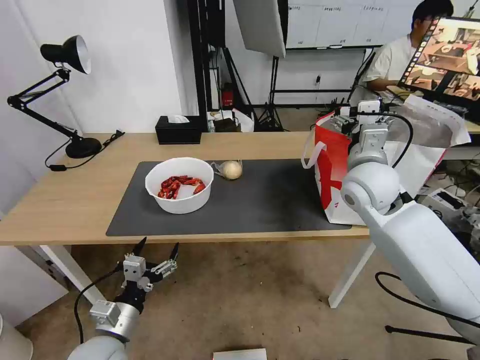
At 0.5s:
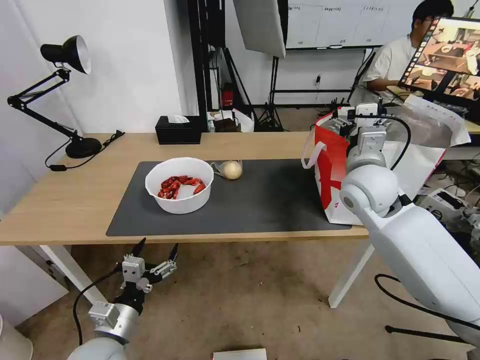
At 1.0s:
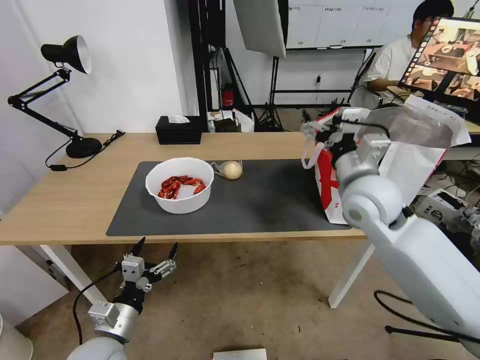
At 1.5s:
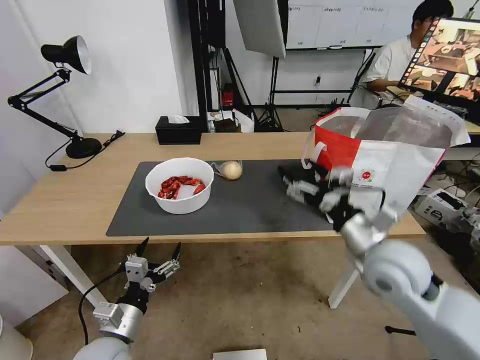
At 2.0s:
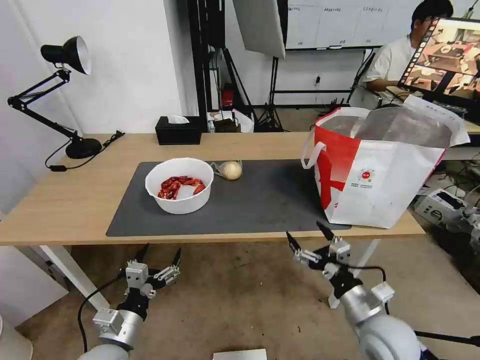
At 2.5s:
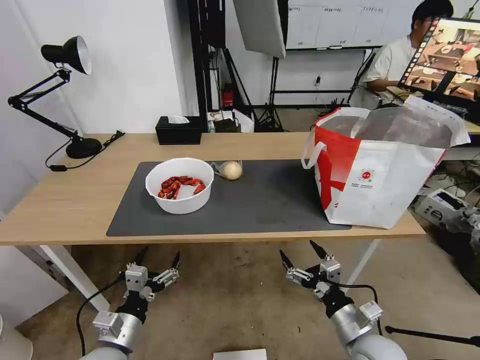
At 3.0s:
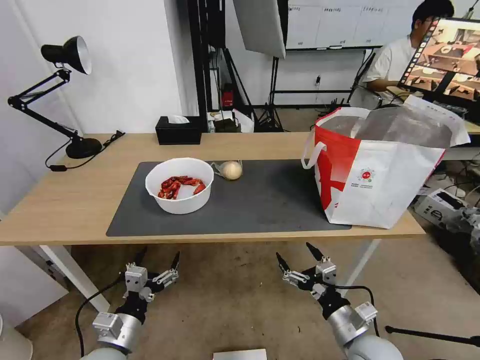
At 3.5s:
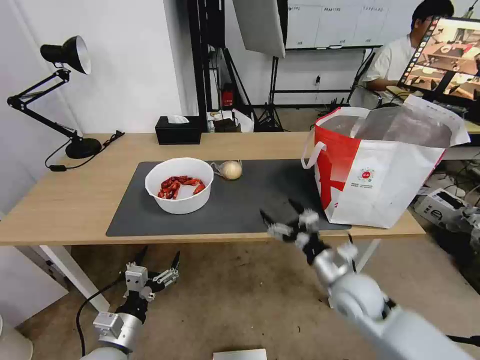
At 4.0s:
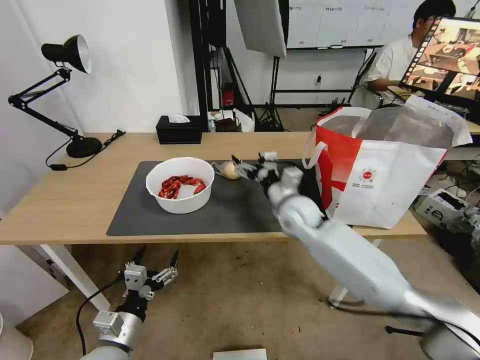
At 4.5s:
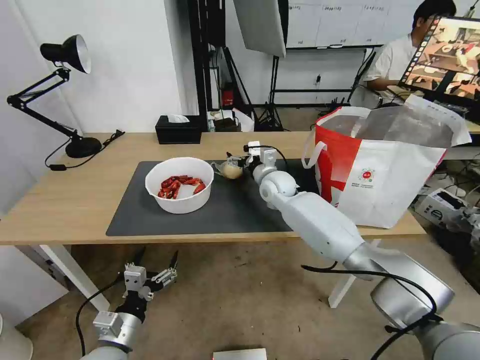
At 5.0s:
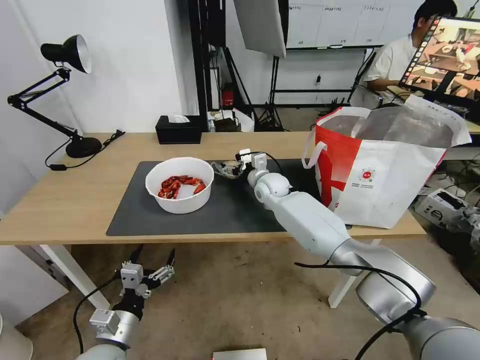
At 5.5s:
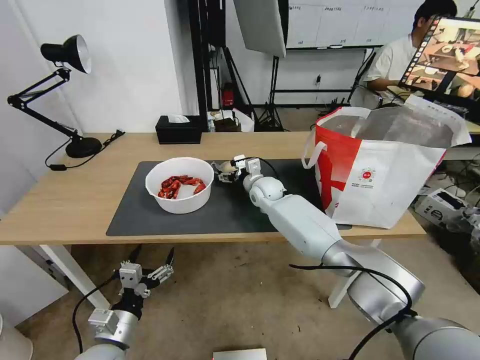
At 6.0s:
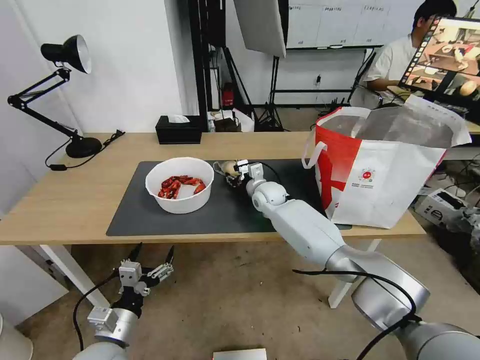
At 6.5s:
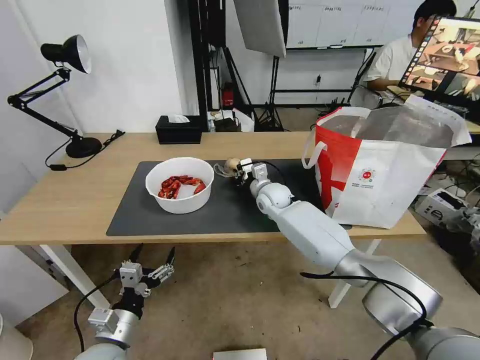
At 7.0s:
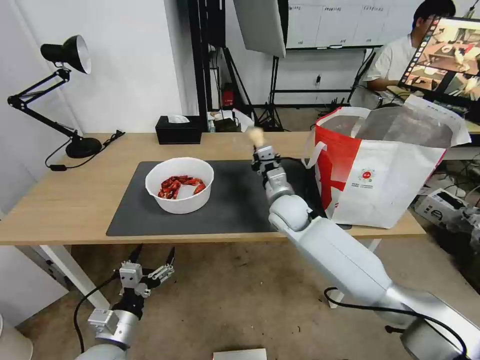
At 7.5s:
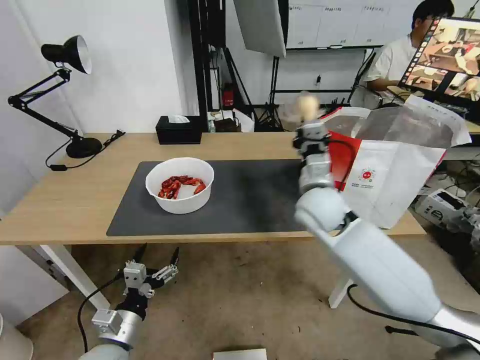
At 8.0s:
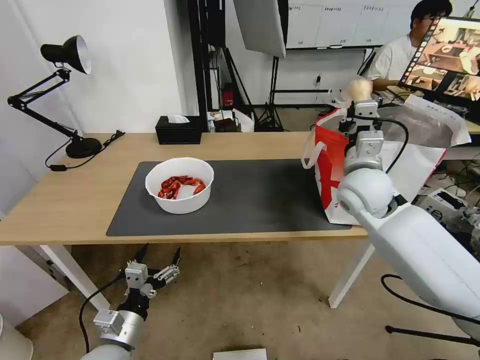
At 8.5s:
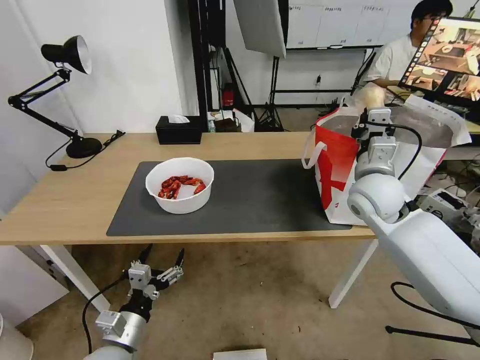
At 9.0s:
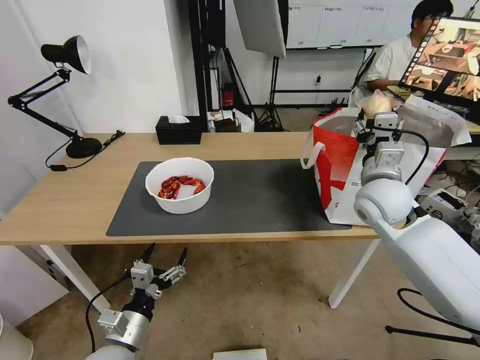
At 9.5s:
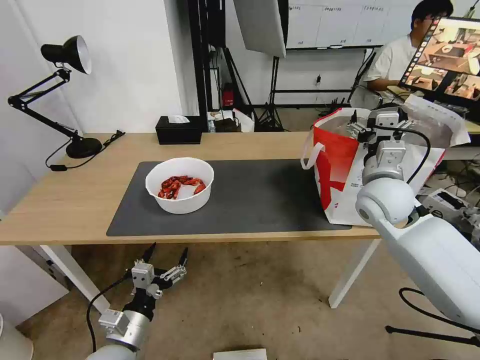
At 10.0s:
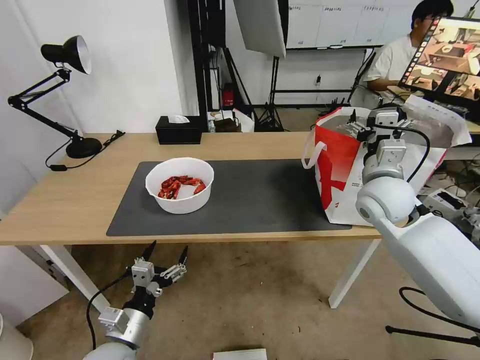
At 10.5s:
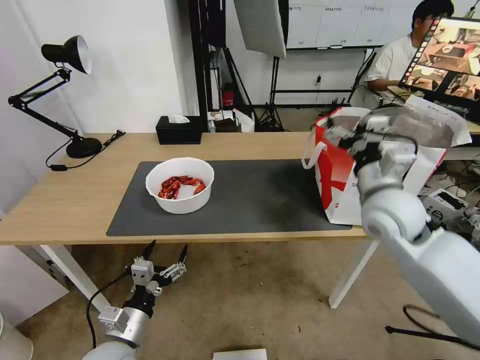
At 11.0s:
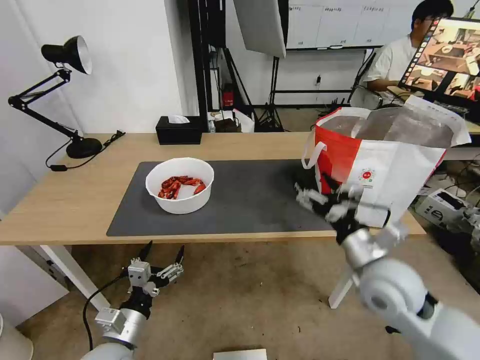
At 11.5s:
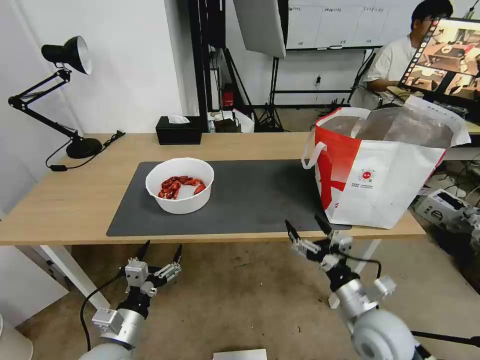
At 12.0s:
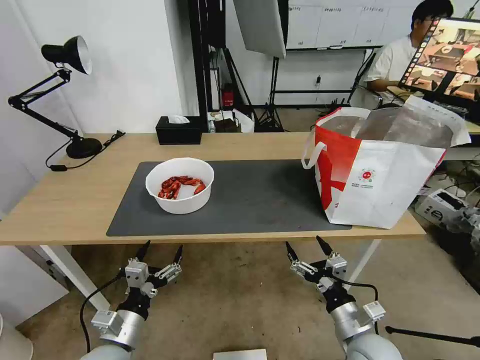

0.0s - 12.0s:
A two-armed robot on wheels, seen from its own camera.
Task of the whole recording: Pick up the trash from the table and place it into the takeout bag.
0.0s - 2.0s: The right gripper goes approximately 30 cm backward and downward.
2.0s - 4.0s: The right gripper shifts some 30 cm forward and to the left.
4.0s - 6.0s: The right gripper travels forward, downward and to the left by roughly 15 cm, and closes.
6.0s - 8.0s: The right gripper travels upward, to the right and backward by about 25 cm, and closes up.
8.0s - 10.0s: The right gripper opens its fingers.
10.0s - 12.0s: The right gripper moves backward and downward, about 30 cm.

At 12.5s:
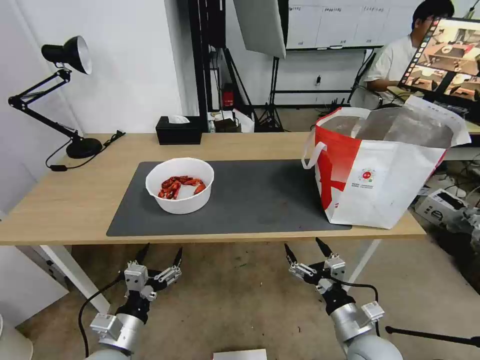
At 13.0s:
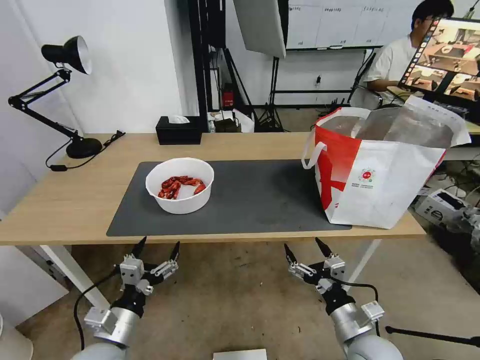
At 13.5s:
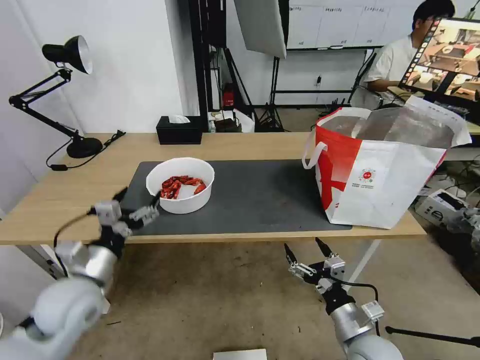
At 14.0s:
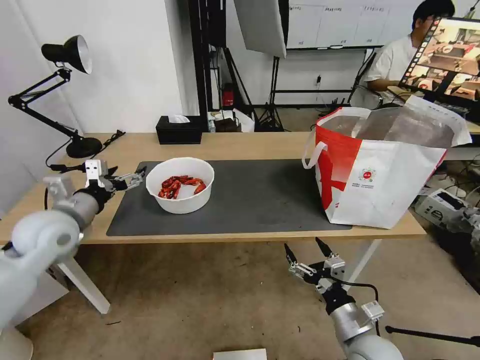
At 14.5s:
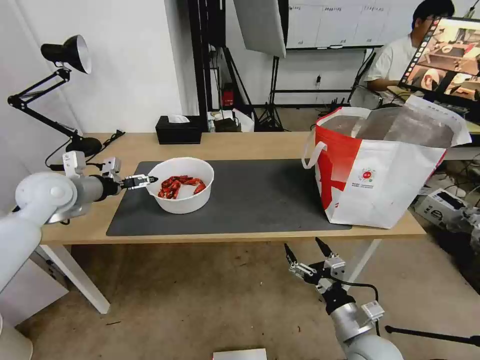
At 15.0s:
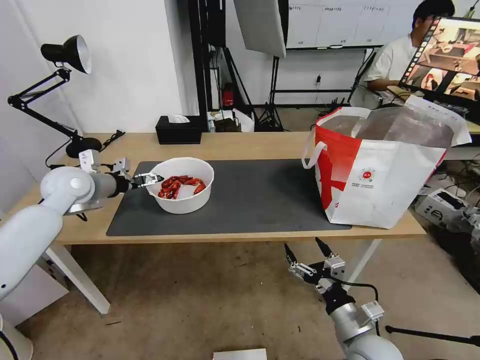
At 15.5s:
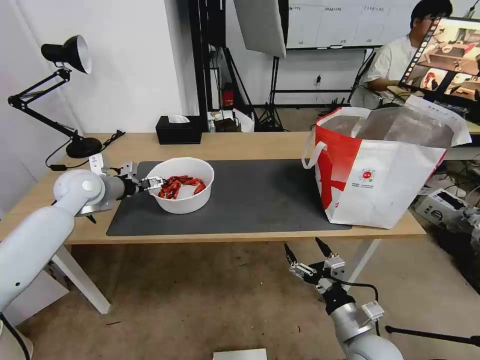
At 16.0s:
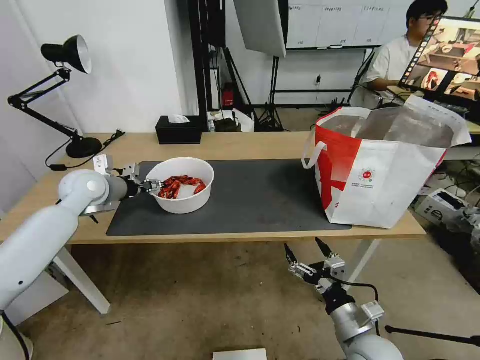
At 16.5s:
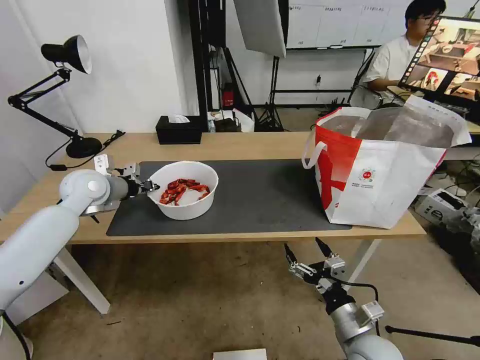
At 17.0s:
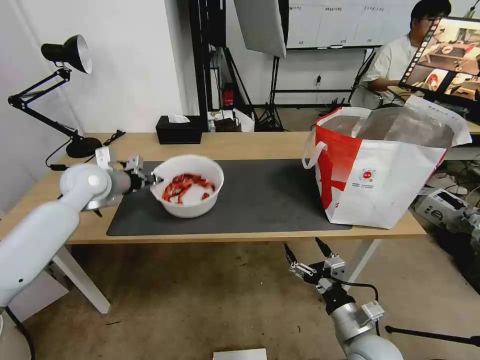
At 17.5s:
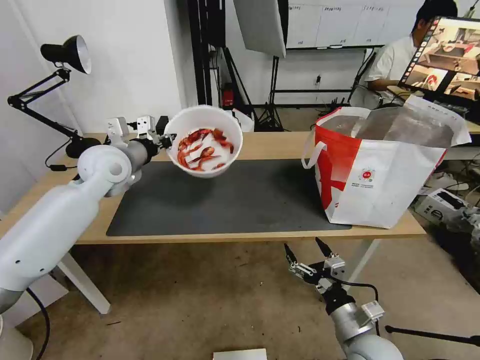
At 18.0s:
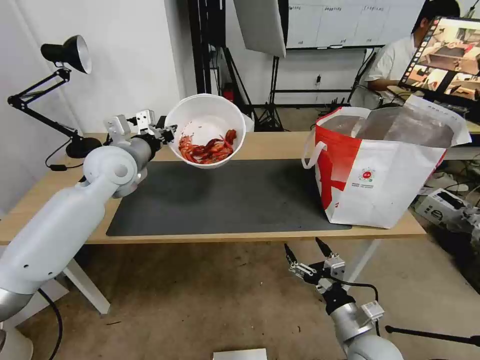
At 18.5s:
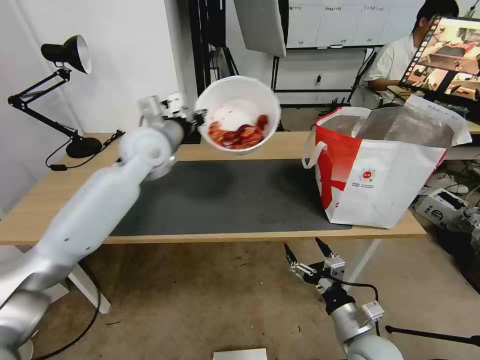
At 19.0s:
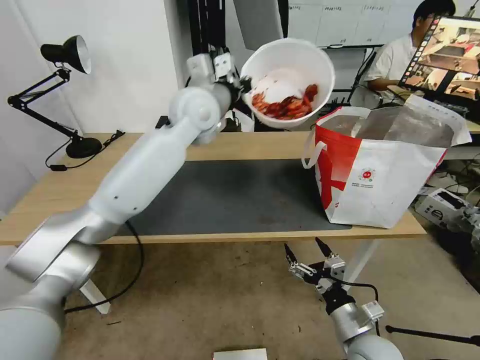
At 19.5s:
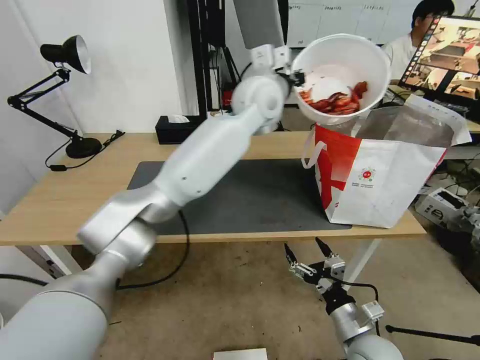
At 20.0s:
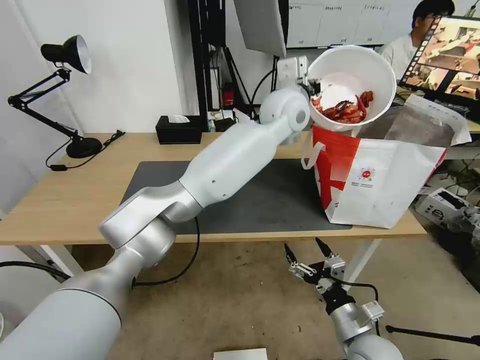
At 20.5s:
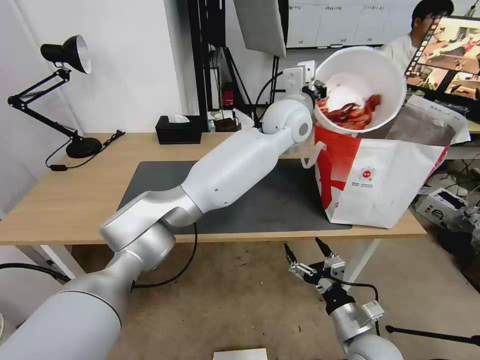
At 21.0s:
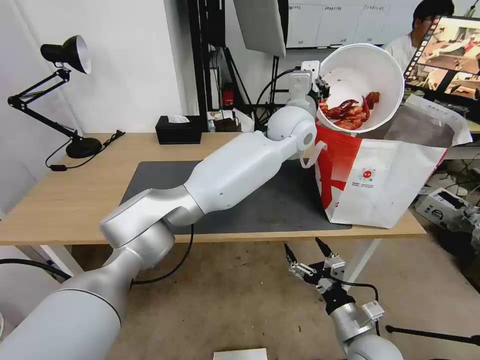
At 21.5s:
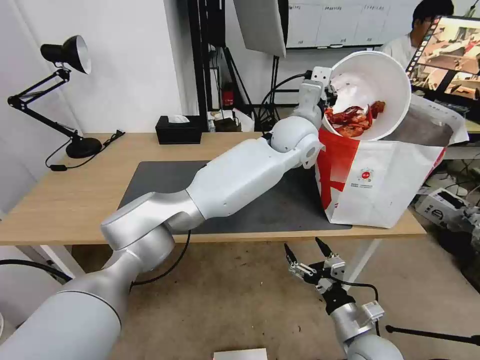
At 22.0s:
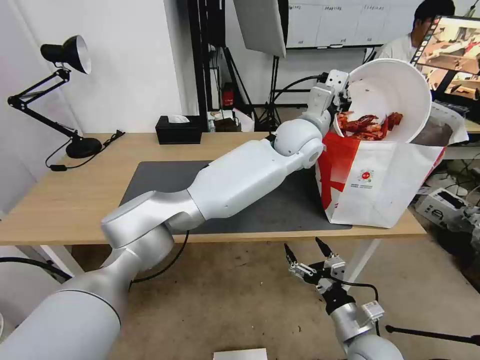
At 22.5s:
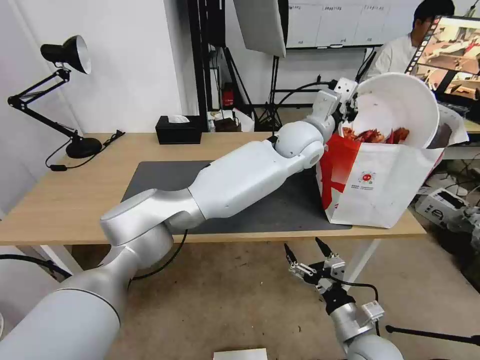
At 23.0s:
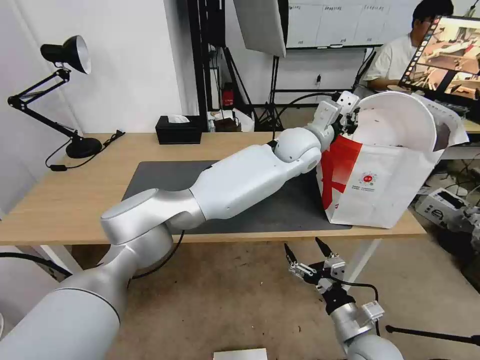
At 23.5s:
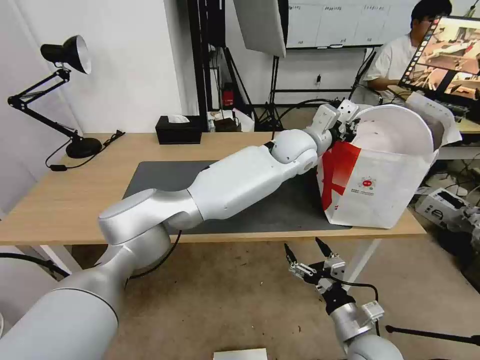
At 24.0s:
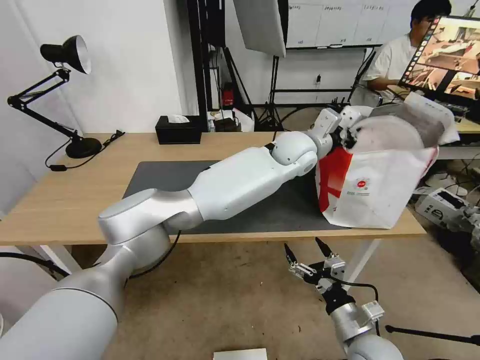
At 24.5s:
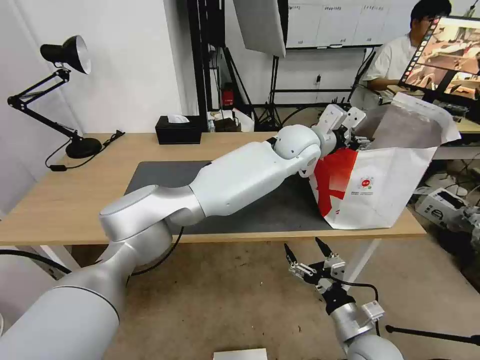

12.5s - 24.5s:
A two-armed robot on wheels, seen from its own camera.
Task of the whole recording: Pick up the trash from the table and place it into the takeout bag.
12.5s - 14.5s: The left gripper is displaced forward, upward and to the left by roughly 35 cm.
14.5s - 16.5s: The left gripper shifts roughly 5 cm forward, and closes its fingers.
16.5s - 18.5s: The left gripper travels to the right and upward by roughly 20 cm.
18.5s - 20.5s: The left gripper travels to the right by roughly 30 cm.
22.5s - 24.5s: The left gripper opens up.

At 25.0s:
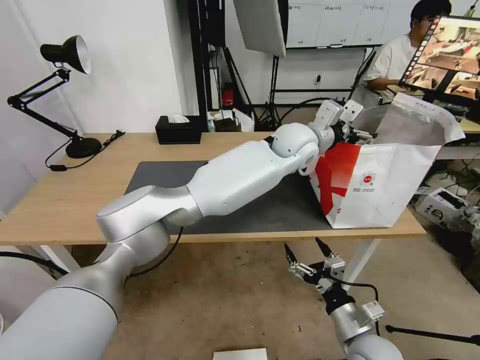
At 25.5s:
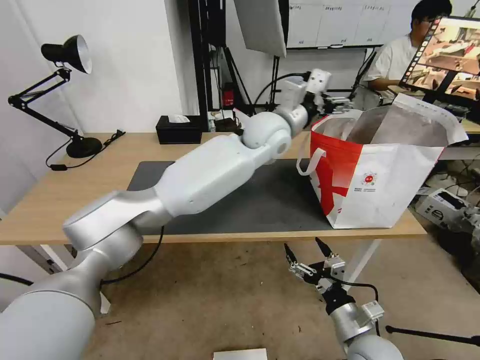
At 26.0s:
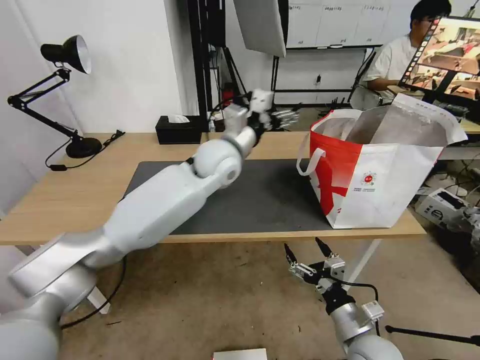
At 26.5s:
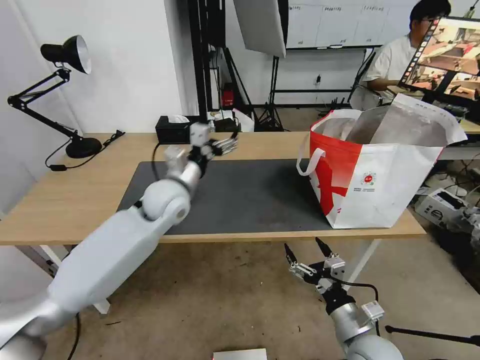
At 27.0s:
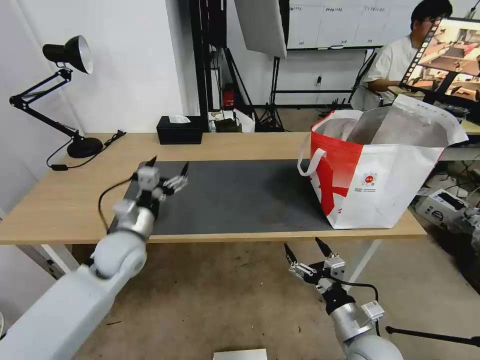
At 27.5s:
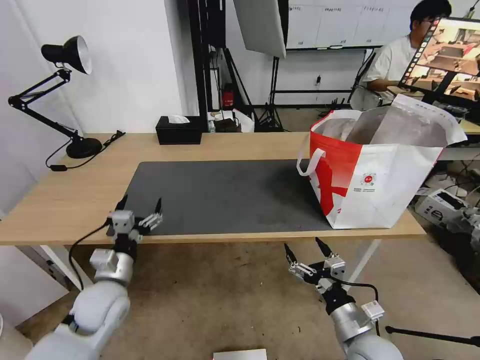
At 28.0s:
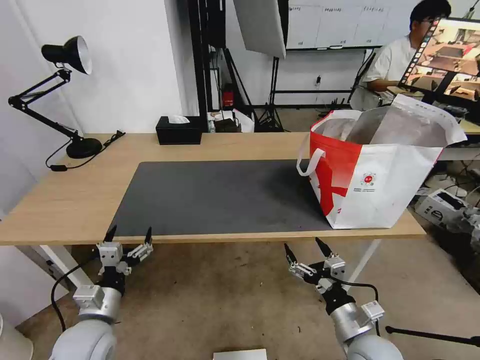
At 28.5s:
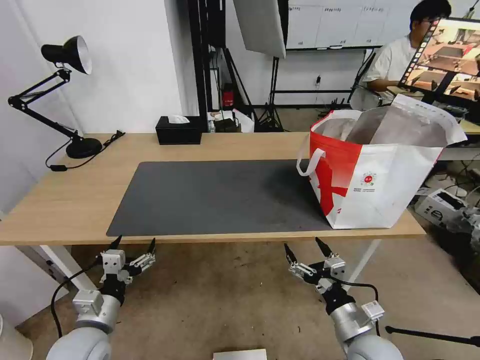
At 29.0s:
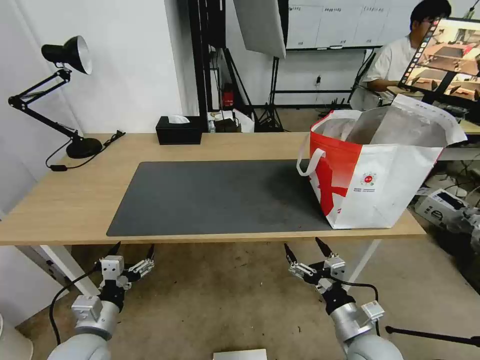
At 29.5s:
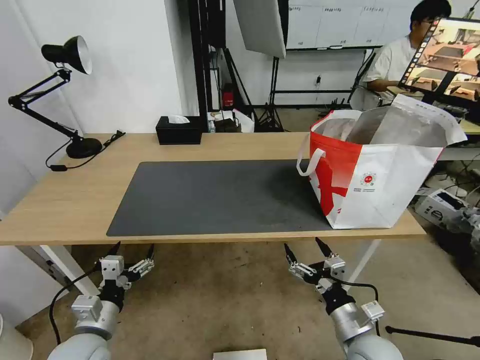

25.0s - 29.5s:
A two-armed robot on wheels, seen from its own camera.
Task of the whole recording: Pick up the trash from the table and place it into the takeout bag.
25.0s - 27.0s: The left gripper heads to the left, backward and downward, covering approximately 40 cm.
27.0s - 29.5s: The left gripper moves backward and downward, some 20 cm.
